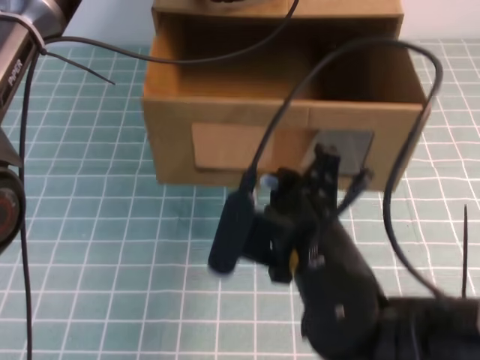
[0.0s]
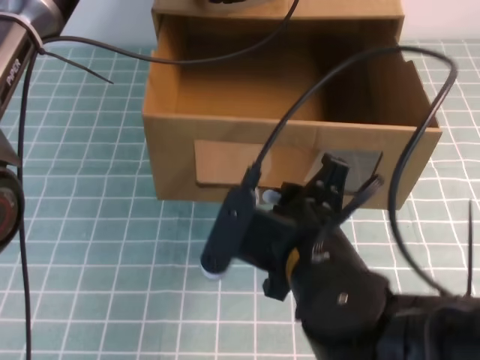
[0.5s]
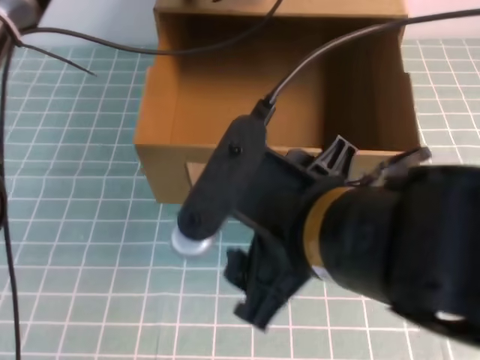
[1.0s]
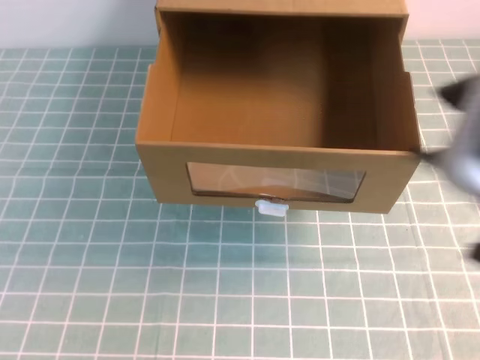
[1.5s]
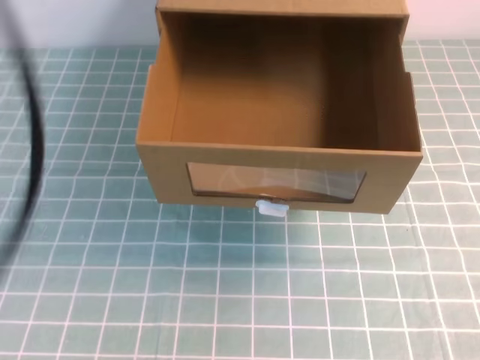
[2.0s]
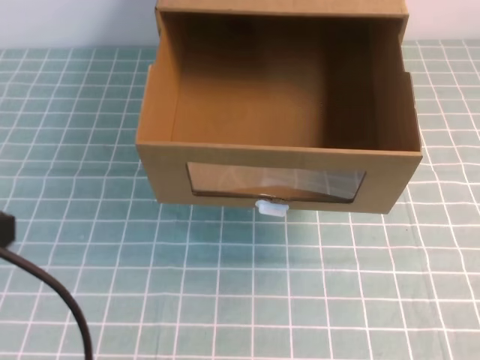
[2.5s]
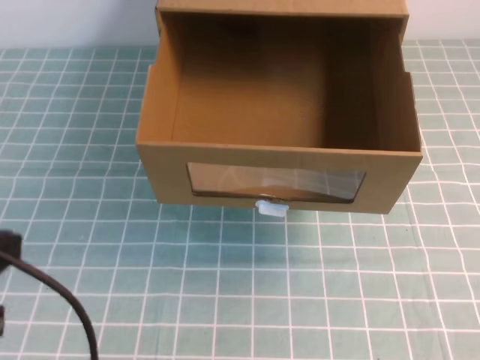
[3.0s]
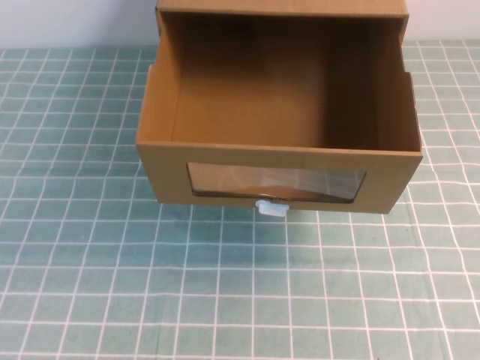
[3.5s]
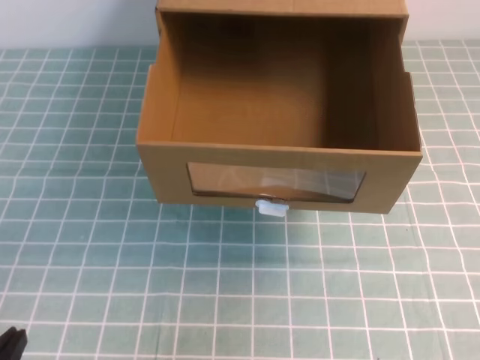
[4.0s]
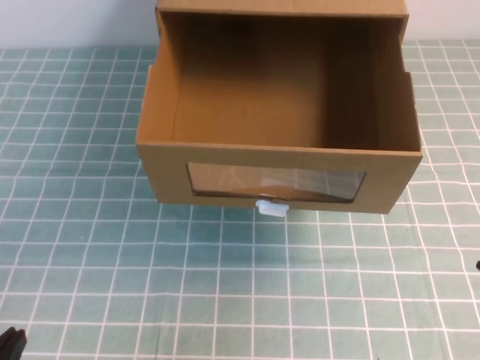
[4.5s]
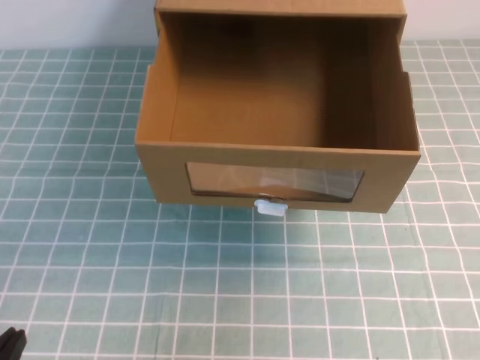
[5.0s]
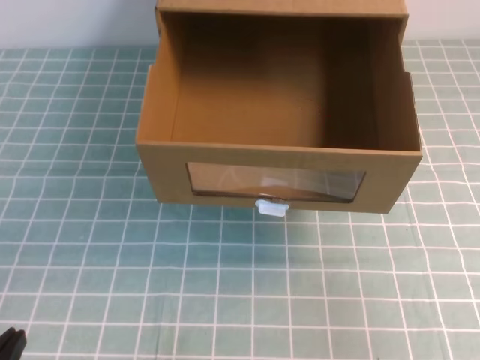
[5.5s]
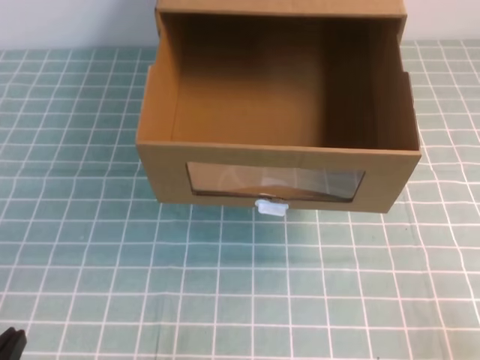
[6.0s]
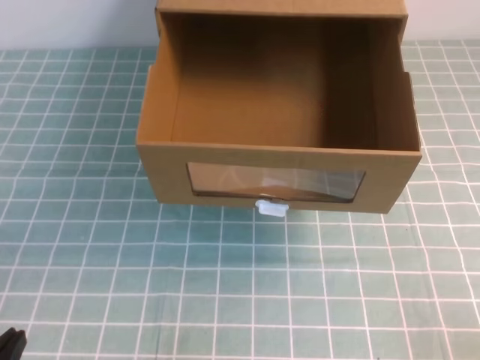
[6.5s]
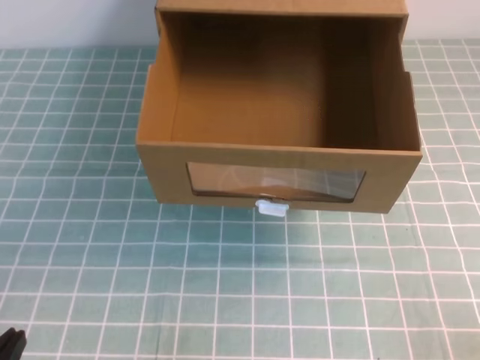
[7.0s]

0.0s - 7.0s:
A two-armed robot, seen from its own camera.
Task of the whole recording: open the shoebox on the cyan tablecloth.
Step, 0.0s - 7.0s: Open the shoe box.
0.0s - 2.0s: The right gripper travels to the right, upward and backward by approximately 30 cm, and opens, then closes once more. Meanwhile the left gripper moves backward, to the left and upward, approximately 40 cm.
2.0s - 3.5s: The left gripper heads downward, covering approximately 20 cm.
5.0s - 7.0s: The right gripper travels downward by roughly 25 cm.
